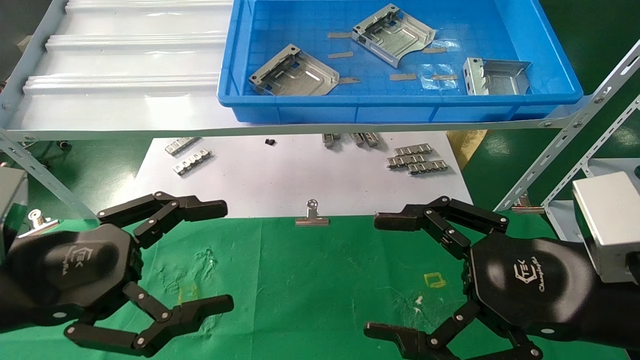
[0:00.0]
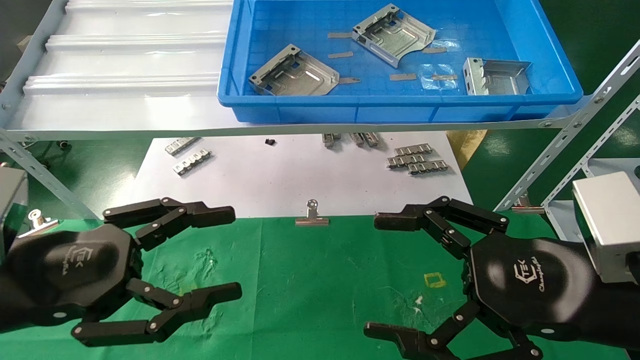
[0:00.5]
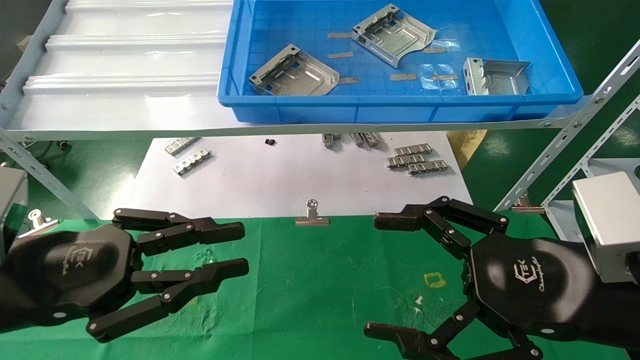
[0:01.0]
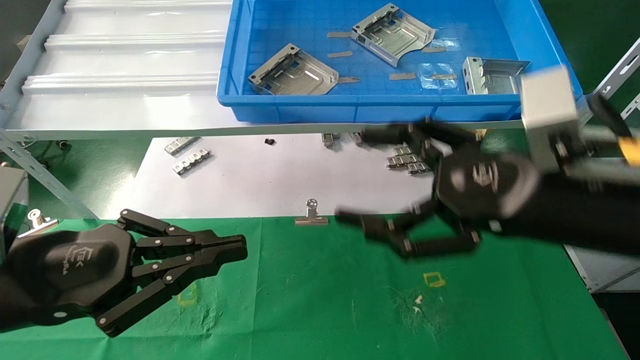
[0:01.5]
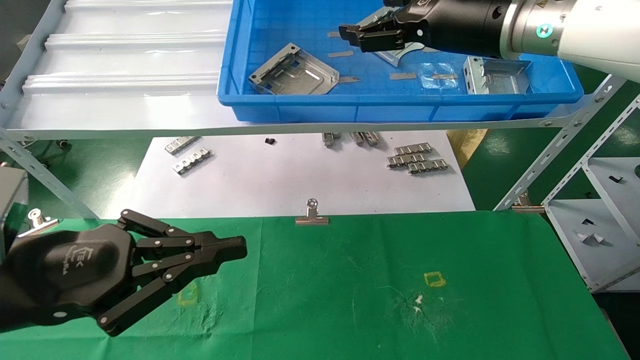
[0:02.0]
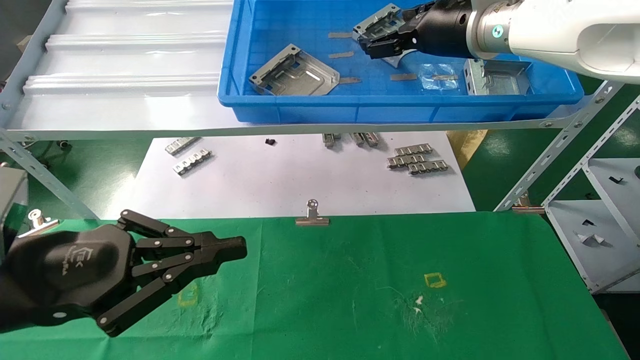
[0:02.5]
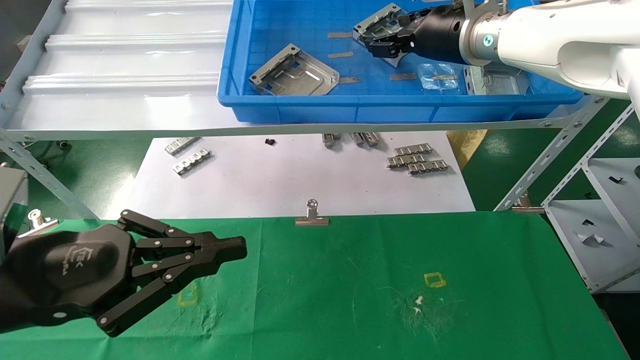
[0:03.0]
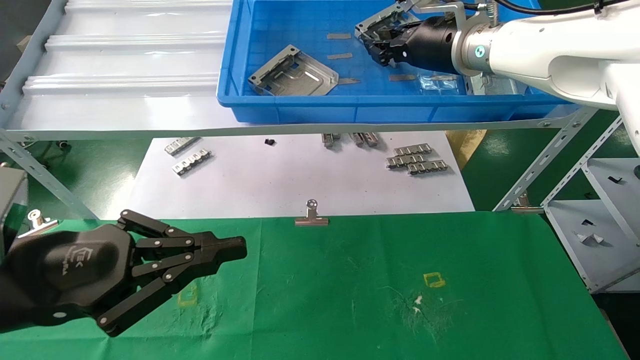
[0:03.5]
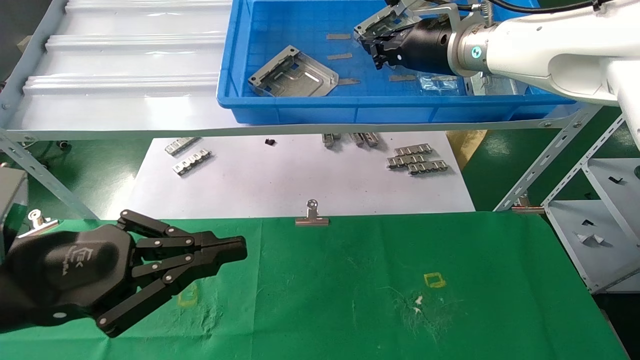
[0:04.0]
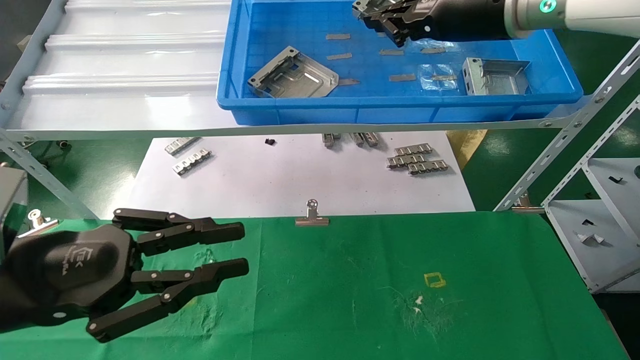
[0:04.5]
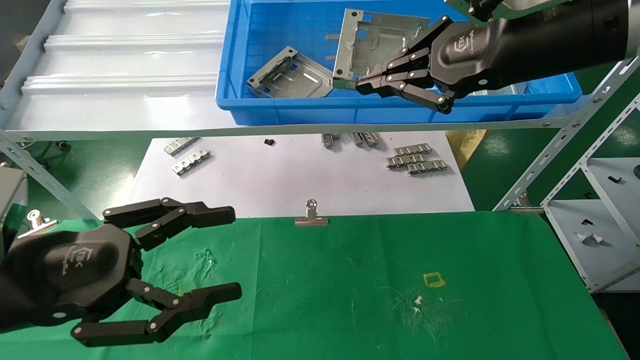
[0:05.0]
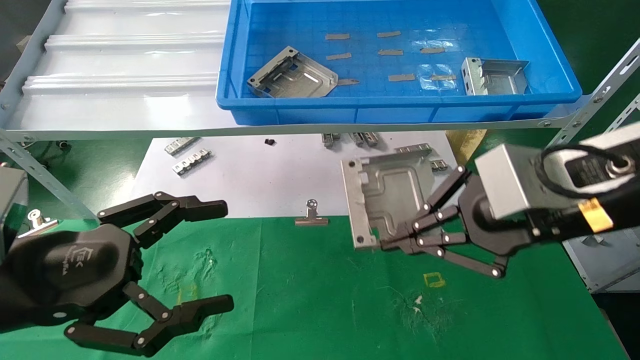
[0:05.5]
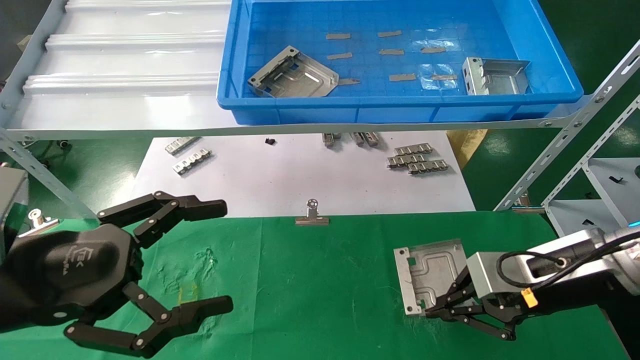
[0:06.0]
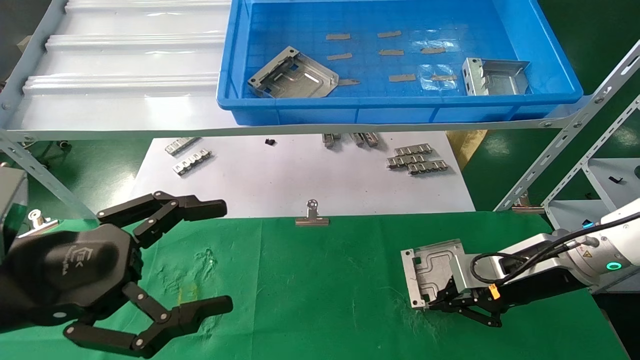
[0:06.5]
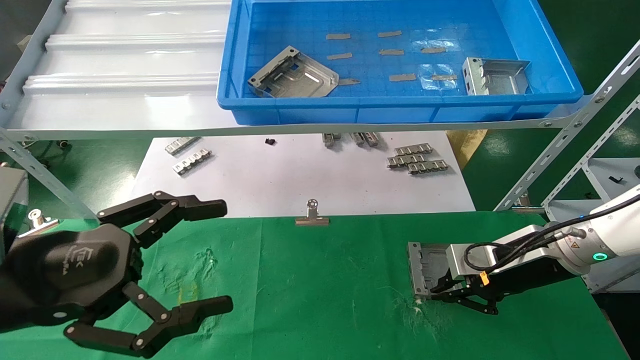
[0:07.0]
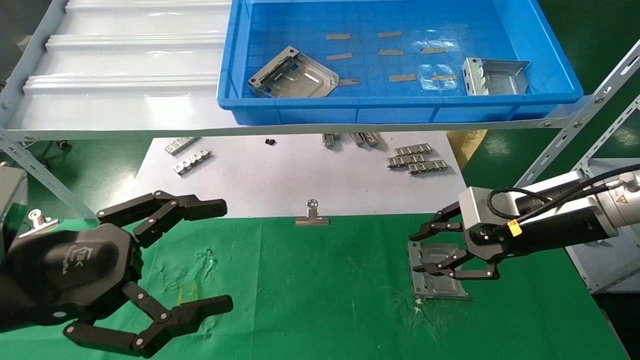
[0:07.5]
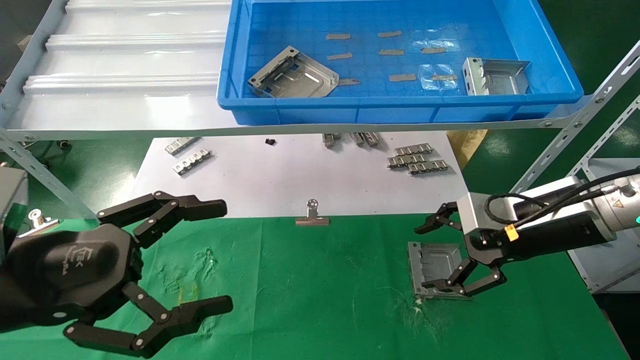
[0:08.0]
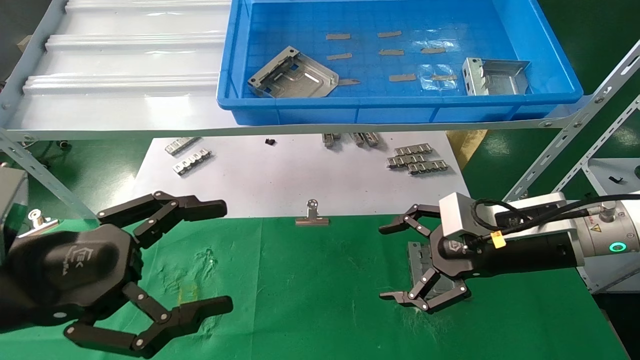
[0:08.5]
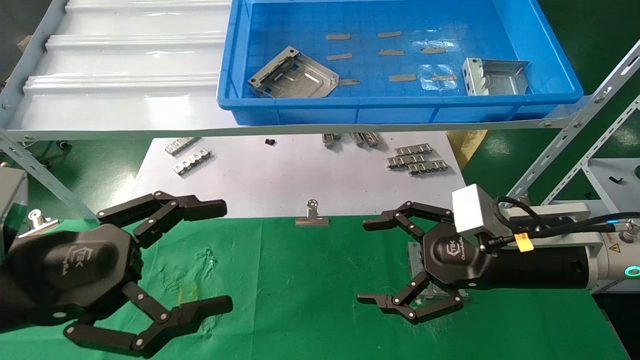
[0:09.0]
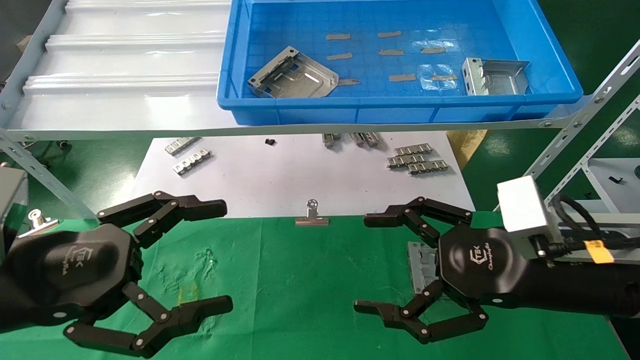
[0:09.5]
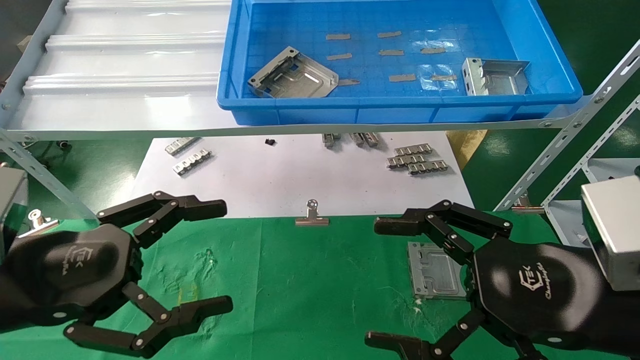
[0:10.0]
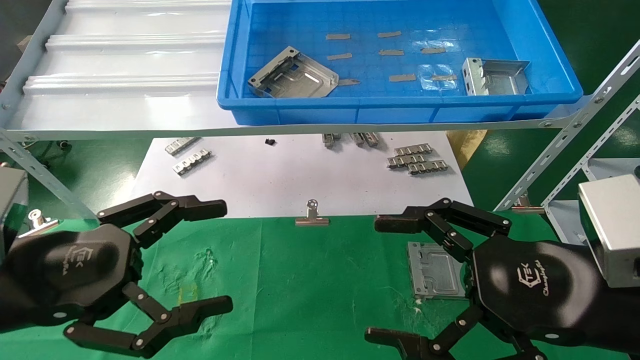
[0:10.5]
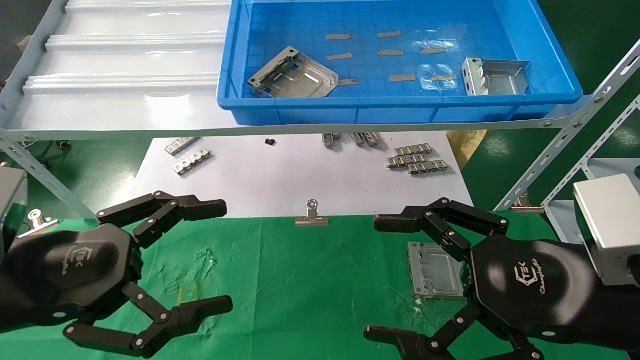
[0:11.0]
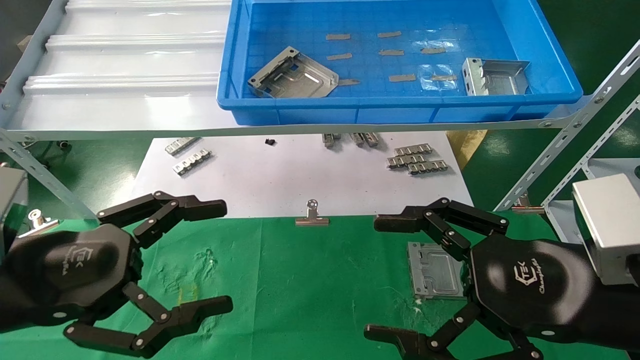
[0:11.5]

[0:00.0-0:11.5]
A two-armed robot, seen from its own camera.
Task of the whole recording: use the mechanical arm to pick up the parts and place them on the table.
Step, 0:02.0 to 0:03.5: Pick up the hard drive bracket from the feeding area.
Step, 0:04.0 to 0:07.0: Place the hard drive bracket into the box.
0:00.0 to 0:02.0: The left gripper closes up; the right gripper shifts roughly 30 cm upward and forward.
0:02.0 to 0:04.0: The right gripper is displaced forward by about 5 cm, and closes up.
0:04.0 to 0:06.0: The left gripper opens its fingers; the right gripper is displaced downward, backward and to the right by approximately 30 cm.
0:07.5 to 0:09.5: The right gripper heads backward, covering roughly 10 cm, and opens.
0:09.5 to 0:11.5: The right gripper is displaced backward by roughly 5 cm.
